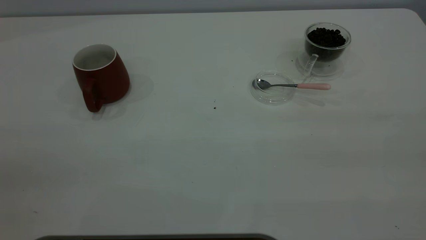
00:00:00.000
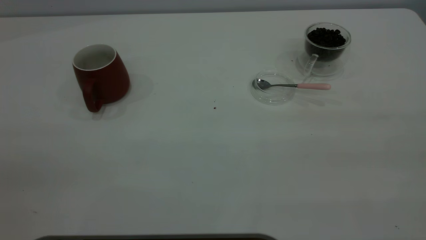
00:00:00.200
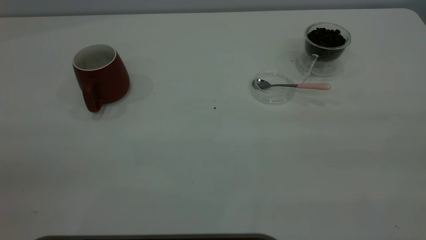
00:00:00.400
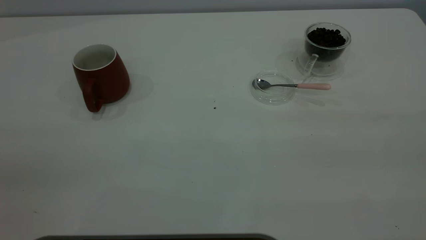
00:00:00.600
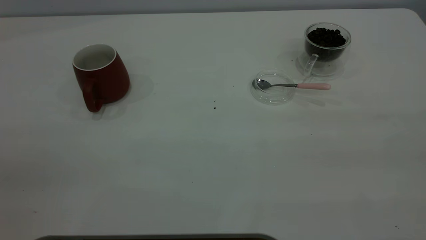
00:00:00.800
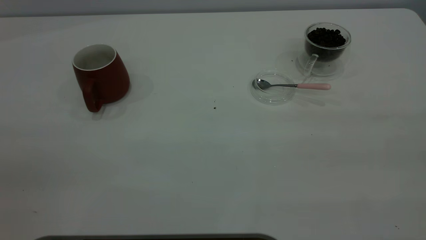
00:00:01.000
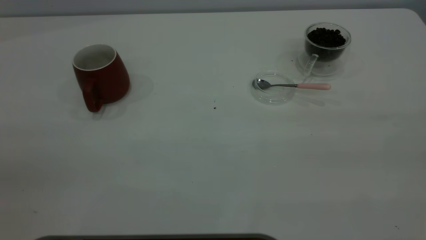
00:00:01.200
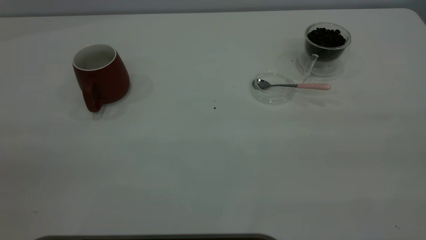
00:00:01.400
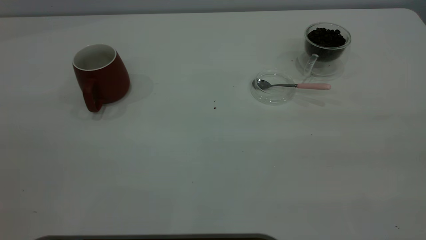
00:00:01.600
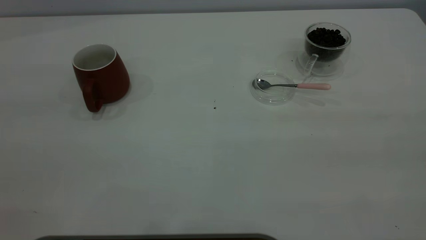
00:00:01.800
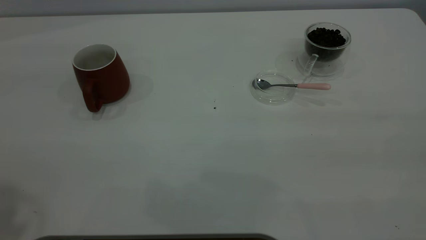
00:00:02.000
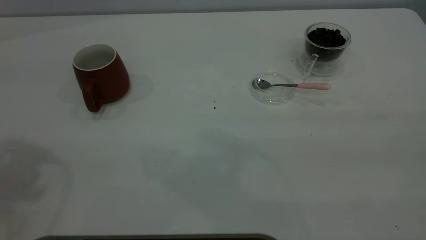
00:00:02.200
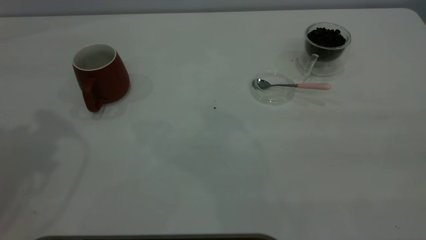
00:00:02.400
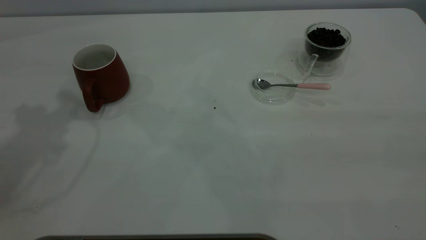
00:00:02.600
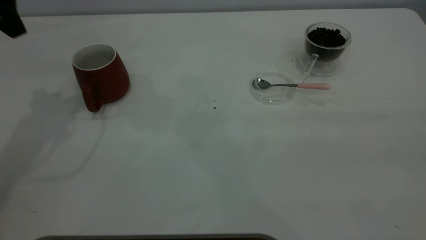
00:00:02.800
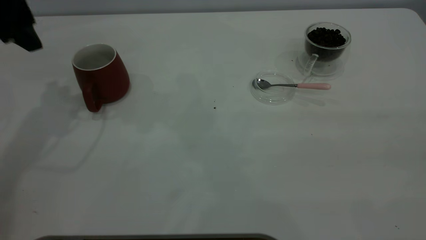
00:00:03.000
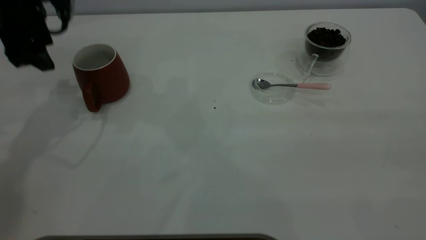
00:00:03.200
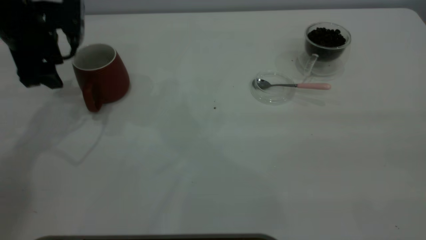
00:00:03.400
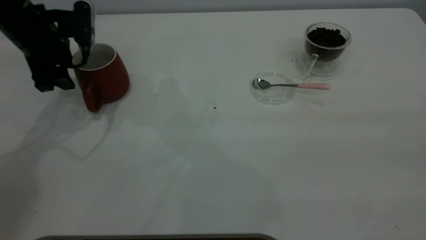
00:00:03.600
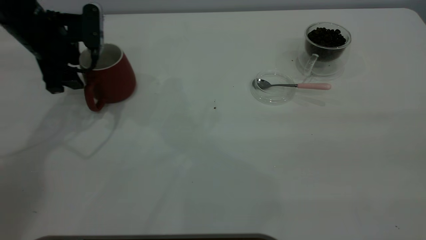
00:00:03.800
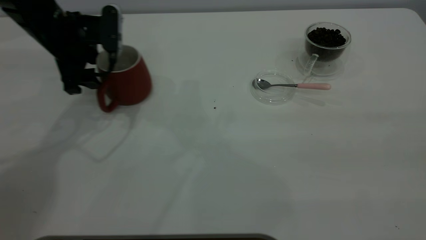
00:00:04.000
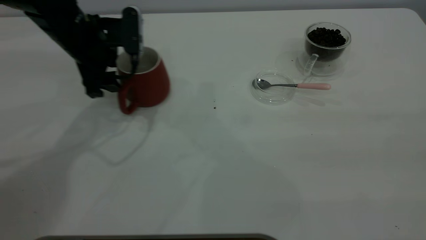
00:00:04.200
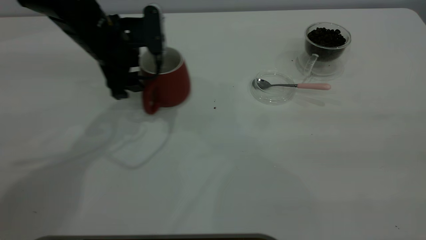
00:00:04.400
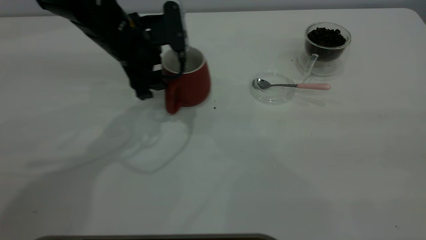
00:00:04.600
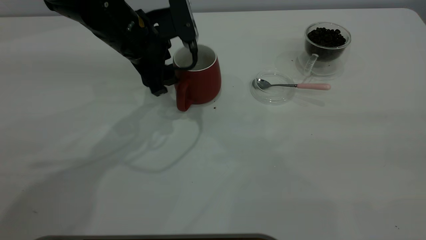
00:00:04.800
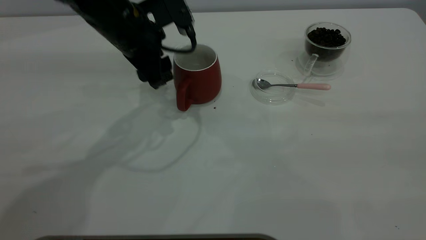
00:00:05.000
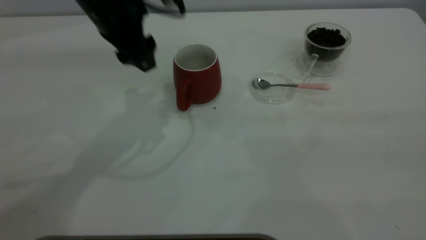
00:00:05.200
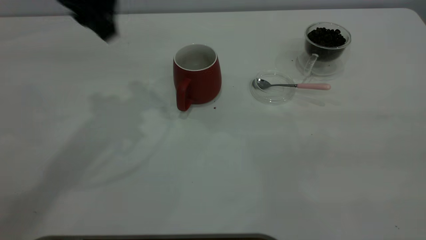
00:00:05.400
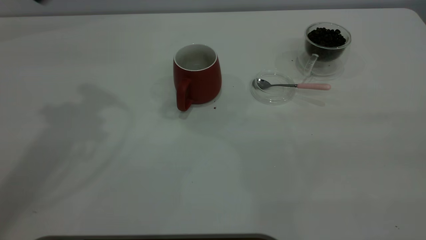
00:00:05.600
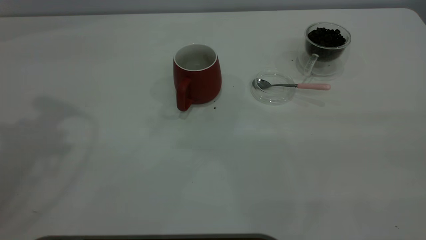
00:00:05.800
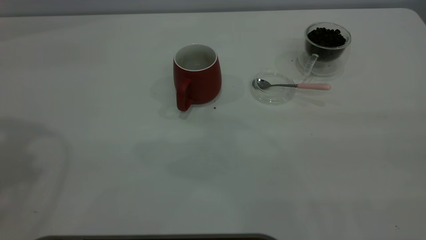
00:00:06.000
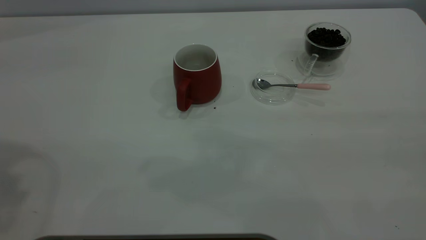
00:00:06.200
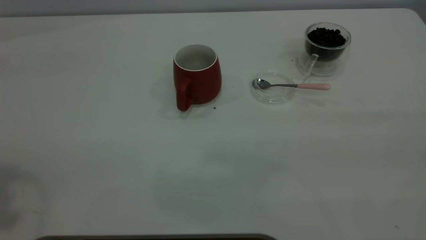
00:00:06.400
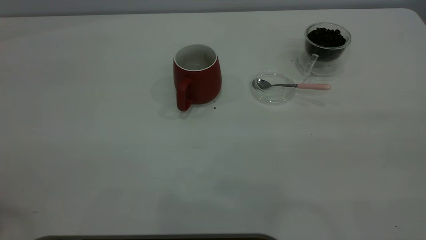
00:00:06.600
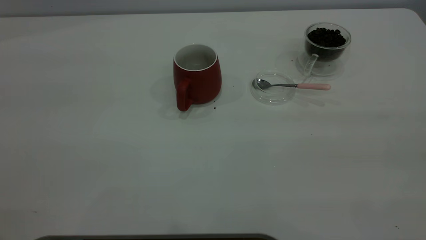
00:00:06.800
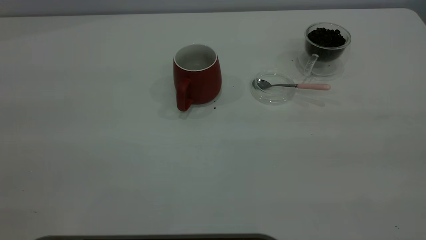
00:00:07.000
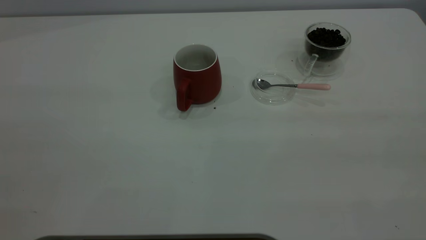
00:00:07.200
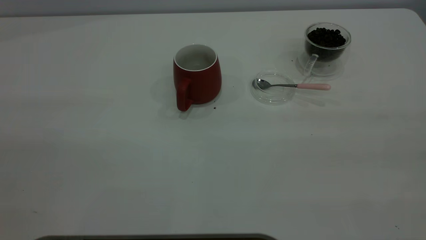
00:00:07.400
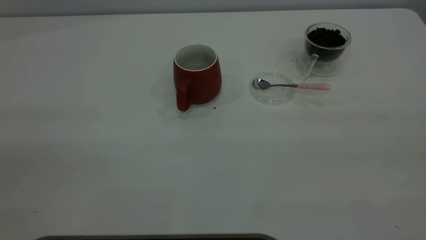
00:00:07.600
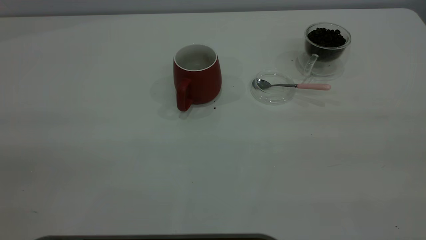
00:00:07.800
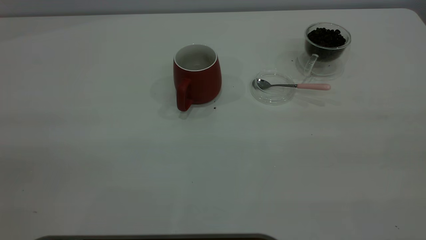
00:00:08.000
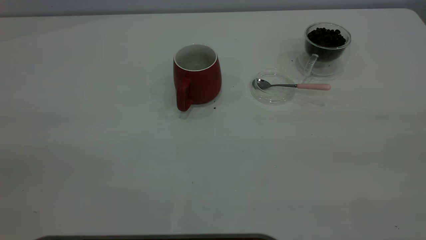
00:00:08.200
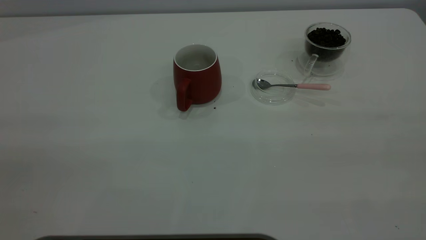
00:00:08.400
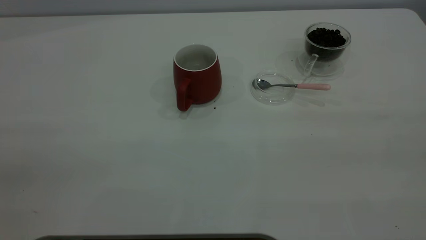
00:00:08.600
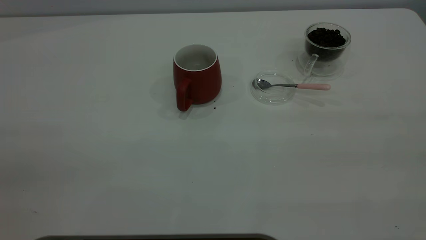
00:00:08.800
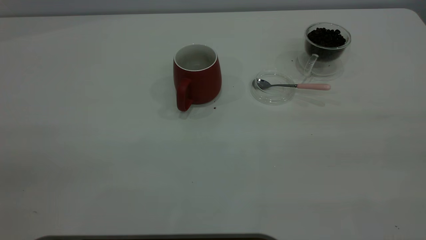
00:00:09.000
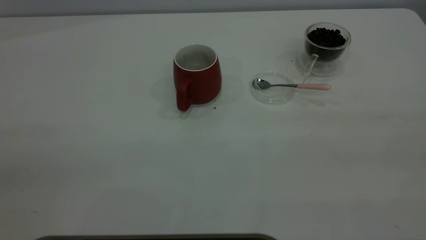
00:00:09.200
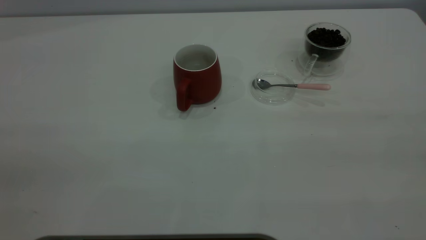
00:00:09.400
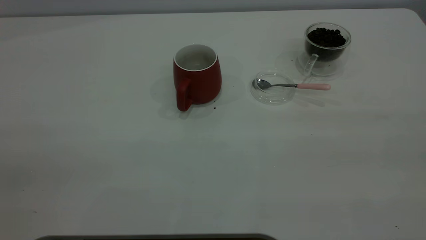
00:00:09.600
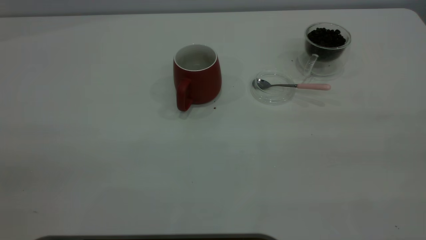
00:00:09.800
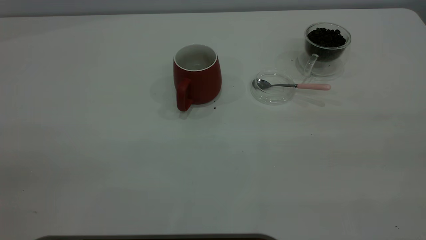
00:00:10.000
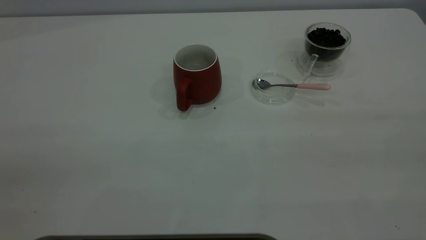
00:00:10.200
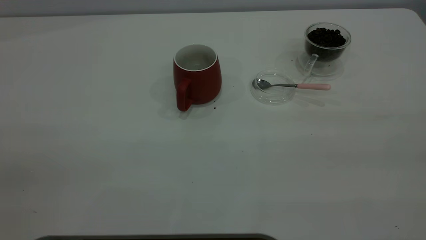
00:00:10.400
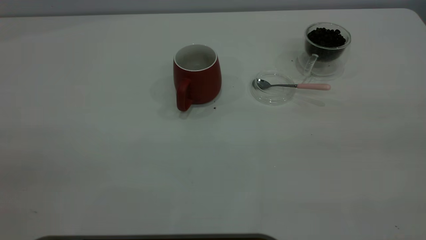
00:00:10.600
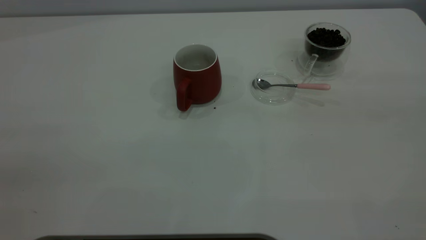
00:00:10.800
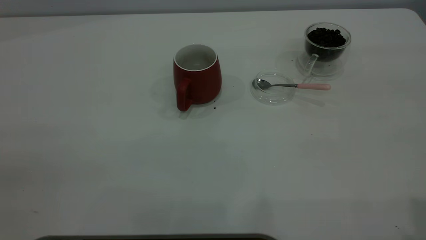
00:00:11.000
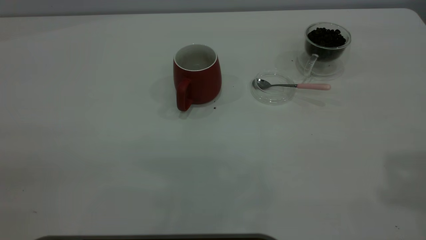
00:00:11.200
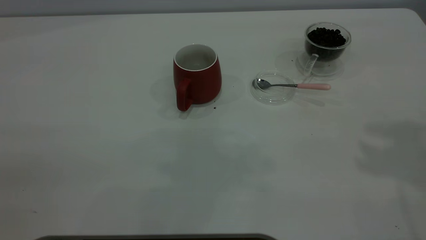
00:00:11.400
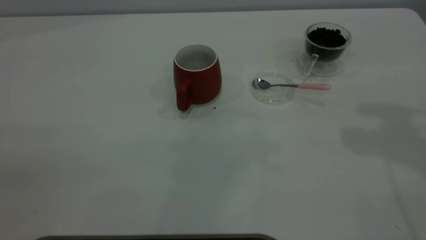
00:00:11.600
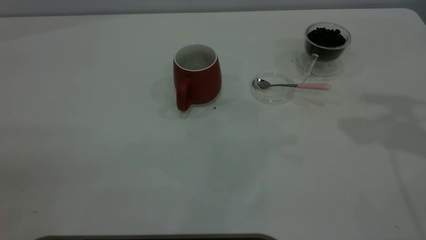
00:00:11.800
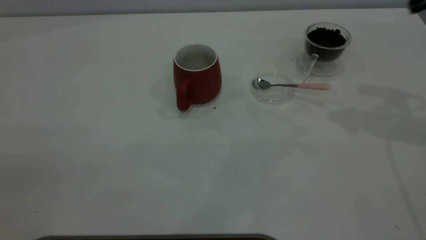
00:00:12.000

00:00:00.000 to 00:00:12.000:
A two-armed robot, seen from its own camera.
Task of the whole recording: the left gripper place the red cup in the center of the table, the right gripper take the pink spoon from the cup lid and scoop out the coffee beans from the coffee cup and put them into the red cup, the right gripper put the spoon back into the cup lid.
Step, 00:00:00.000 to 00:00:05.000: Move the cup to the center of view.
00:00:01.600 to 00:00:03.000: The left gripper is displaced forward and downward by approximately 40 cm.
00:00:03.000 to 00:00:04.400: The left gripper moves to the right and downward, some 15 cm.
00:00:04.400 to 00:00:06.000: The left gripper goes some 35 cm upward, to the left and backward.
00:00:09.000 to 00:00:10.400: The two grippers keep their place.

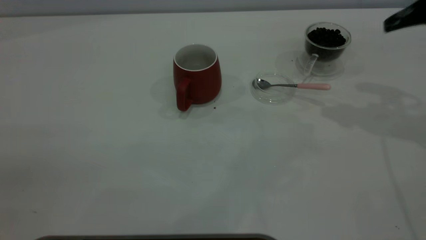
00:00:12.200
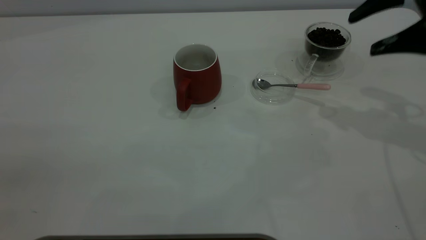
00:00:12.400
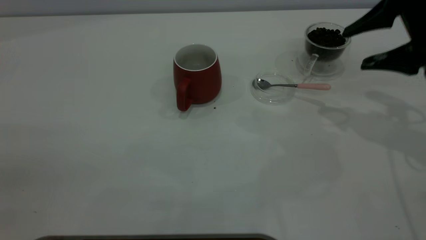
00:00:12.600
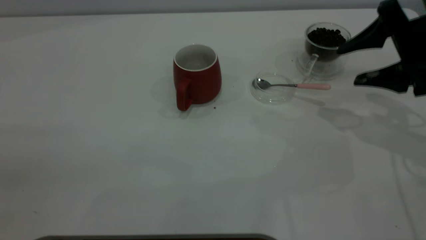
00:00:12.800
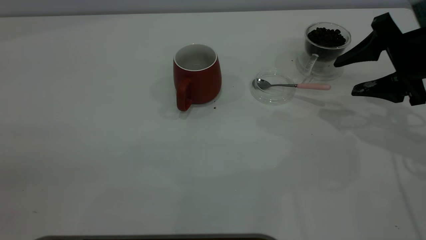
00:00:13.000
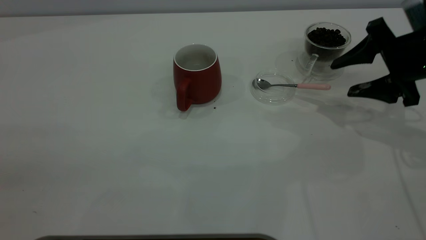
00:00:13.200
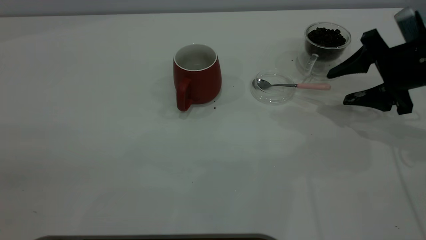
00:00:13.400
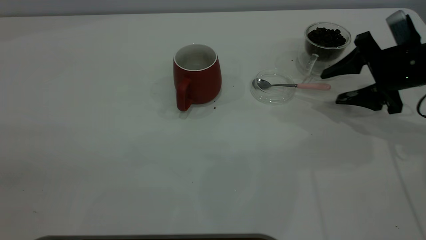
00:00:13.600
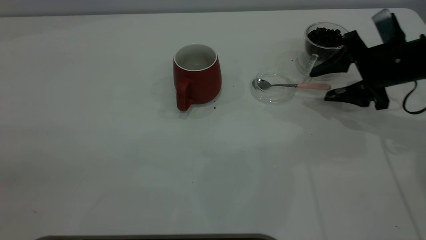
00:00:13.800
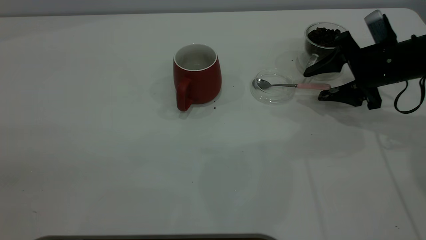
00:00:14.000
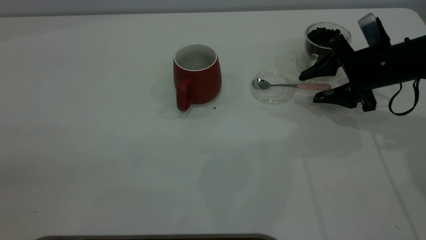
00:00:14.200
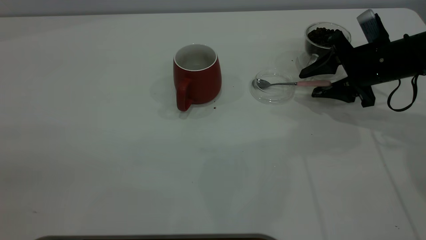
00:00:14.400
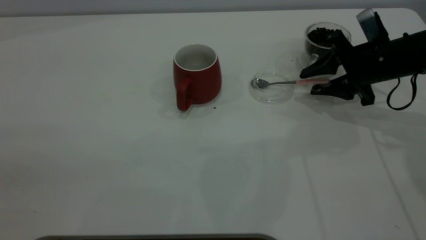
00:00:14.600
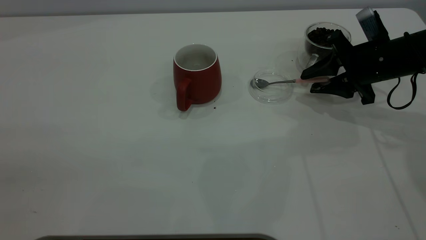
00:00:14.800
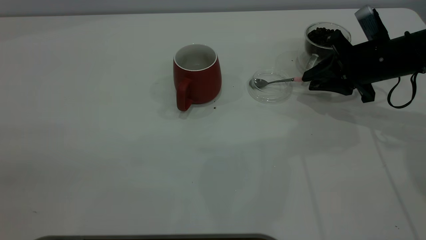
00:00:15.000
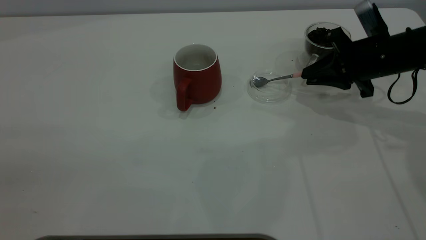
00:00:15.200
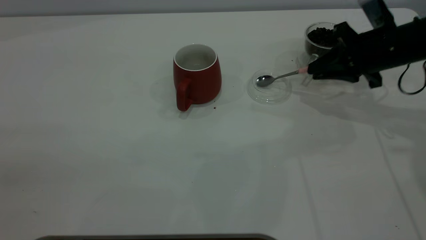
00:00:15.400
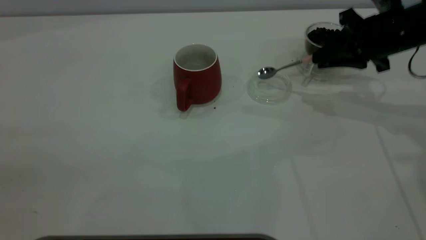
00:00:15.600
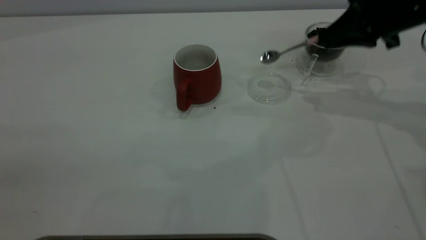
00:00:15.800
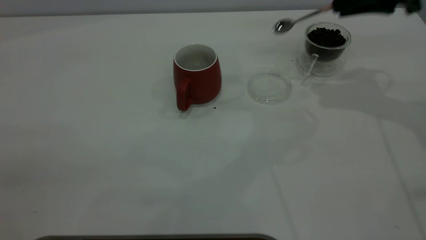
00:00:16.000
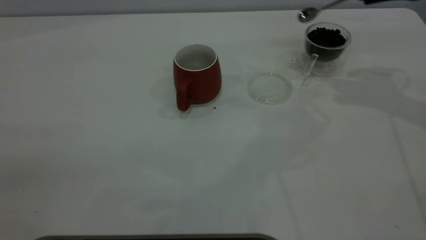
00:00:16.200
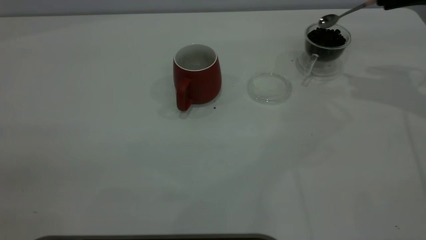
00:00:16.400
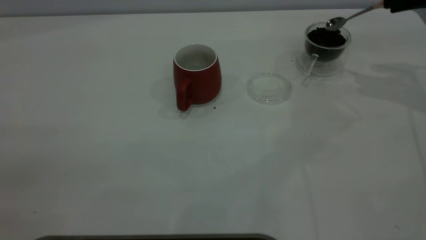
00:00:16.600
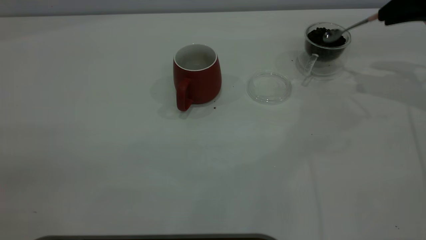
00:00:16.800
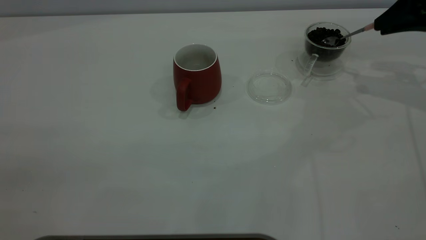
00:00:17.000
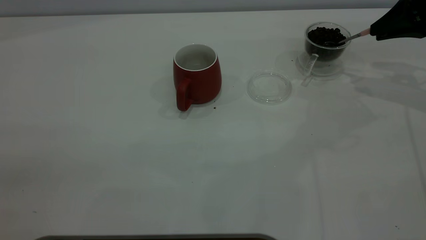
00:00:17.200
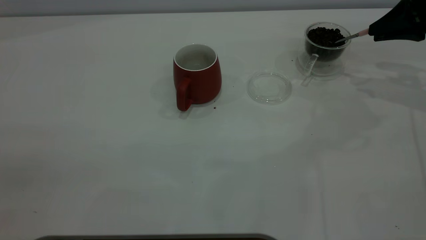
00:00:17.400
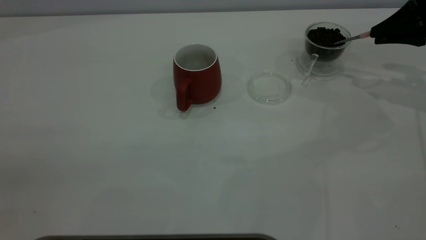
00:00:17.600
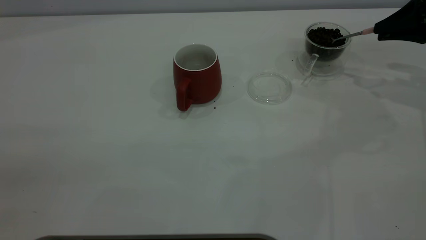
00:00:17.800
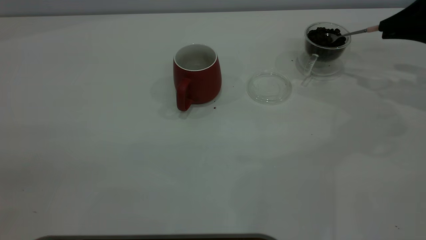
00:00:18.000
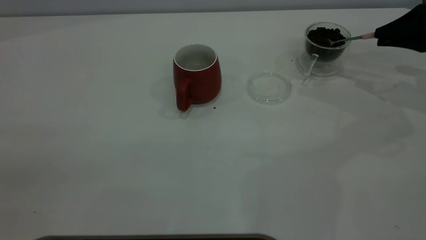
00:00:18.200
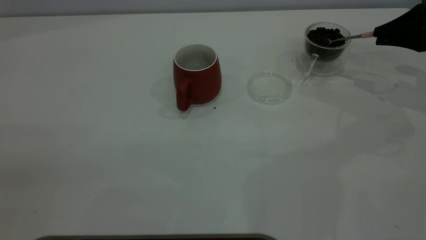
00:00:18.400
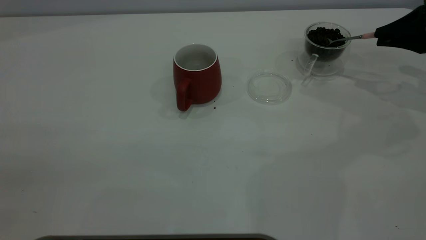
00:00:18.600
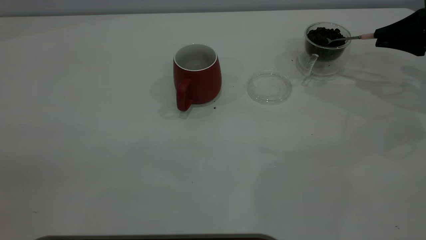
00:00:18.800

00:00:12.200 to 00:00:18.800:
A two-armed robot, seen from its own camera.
Task of the whole recording: the left gripper place the red cup in the center of the table, the right gripper take the pink spoon from the cup lid and scoop out the coffee beans from the coffee cup and put them into the red cup, the right gripper put the spoon back into the cup lid.
Step, 00:00:12.200 to 00:00:15.400: Pick up the spoon.
00:00:12.200 to 00:00:13.800: The right gripper goes some 15 cm downward.
00:00:13.800 to 00:00:15.400: The right gripper closes its fingers.
00:00:15.400 to 00:00:17.200: The right gripper travels to the right and upward by roughly 10 cm.
00:00:17.200 to 00:00:18.800: The right gripper ends up approximately 5 cm from where it was.
